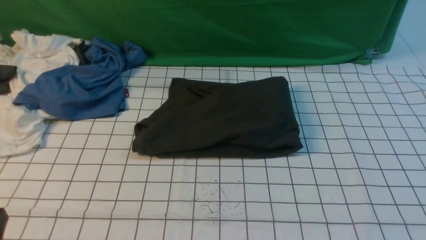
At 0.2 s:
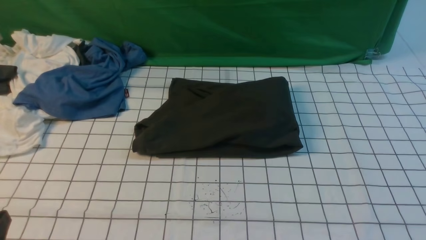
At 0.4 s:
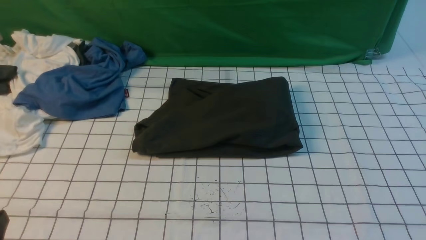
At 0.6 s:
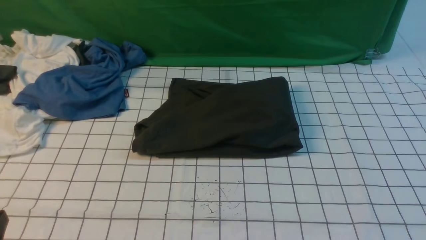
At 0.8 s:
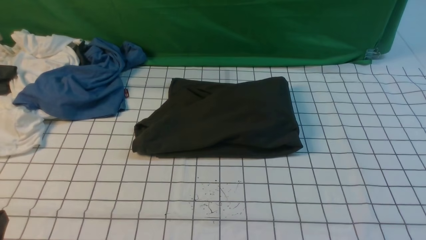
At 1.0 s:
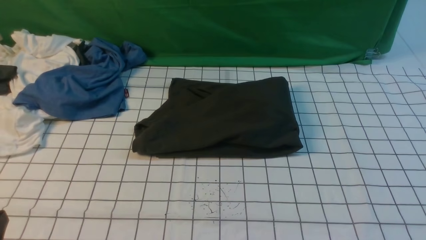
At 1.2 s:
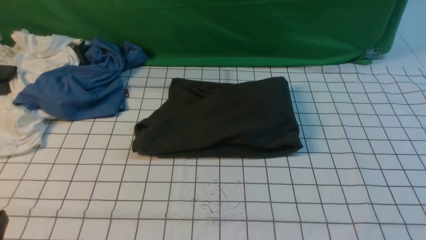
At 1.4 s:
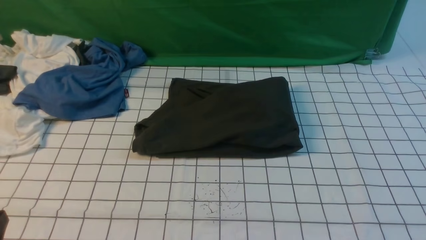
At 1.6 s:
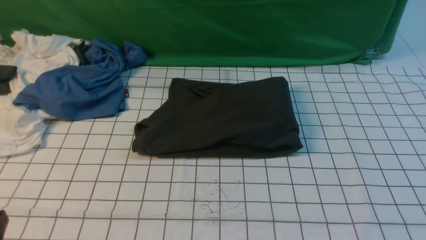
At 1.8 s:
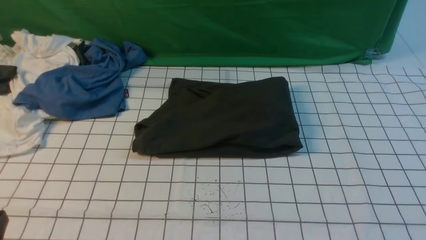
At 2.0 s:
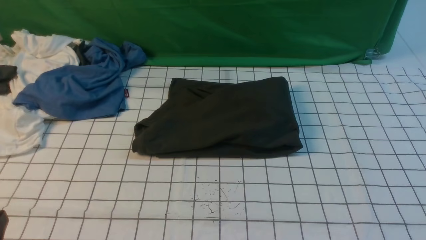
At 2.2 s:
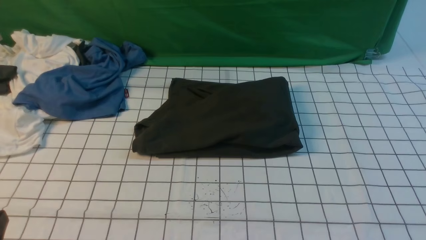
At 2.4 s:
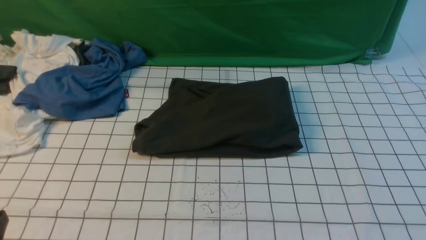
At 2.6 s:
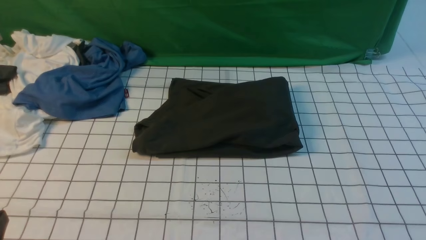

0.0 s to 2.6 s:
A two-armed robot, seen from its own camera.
0.0 to 2.6 s: Both grippers stay about where they are.

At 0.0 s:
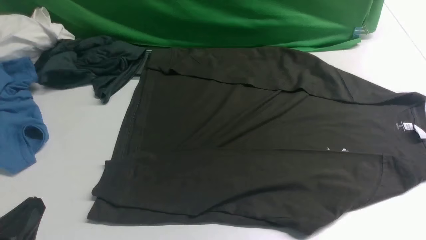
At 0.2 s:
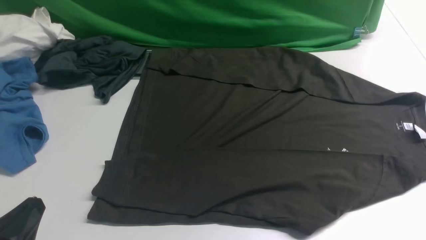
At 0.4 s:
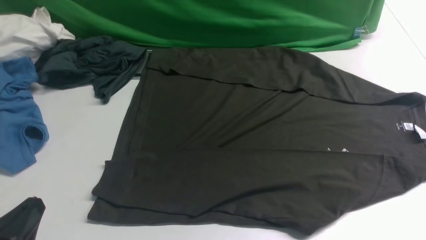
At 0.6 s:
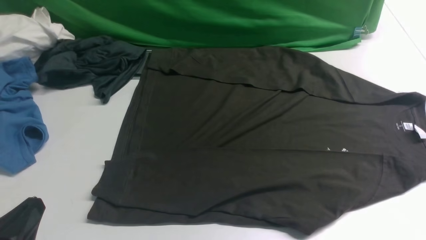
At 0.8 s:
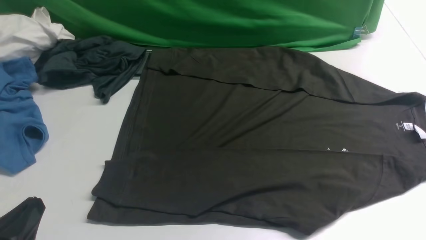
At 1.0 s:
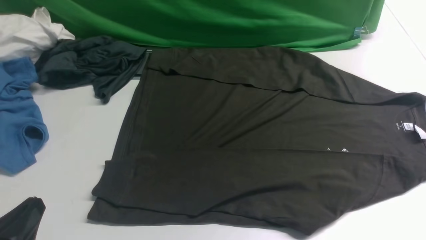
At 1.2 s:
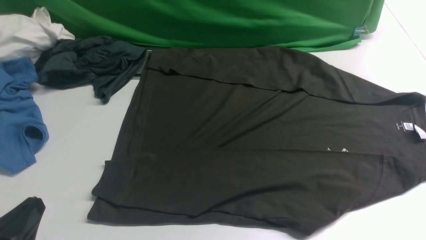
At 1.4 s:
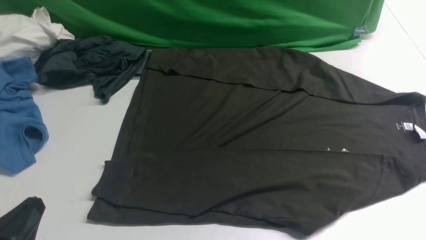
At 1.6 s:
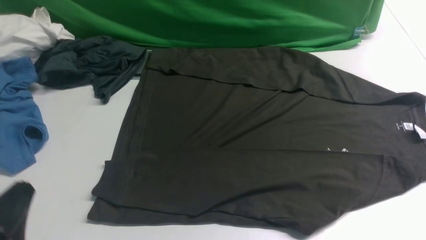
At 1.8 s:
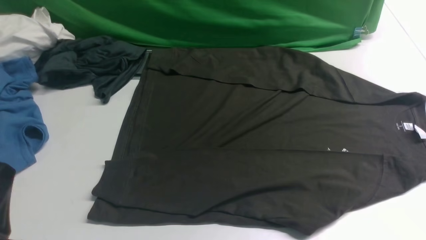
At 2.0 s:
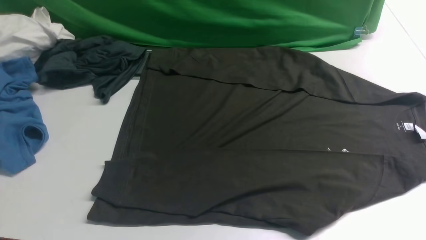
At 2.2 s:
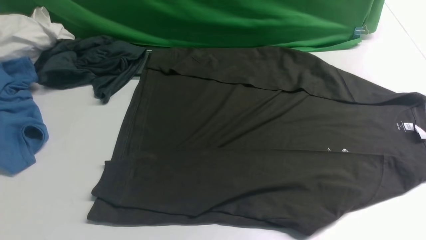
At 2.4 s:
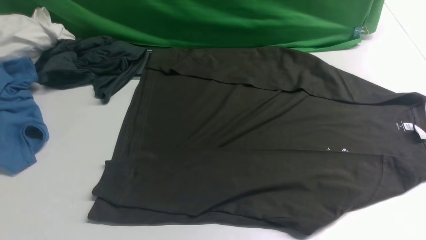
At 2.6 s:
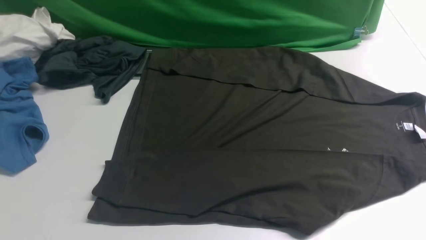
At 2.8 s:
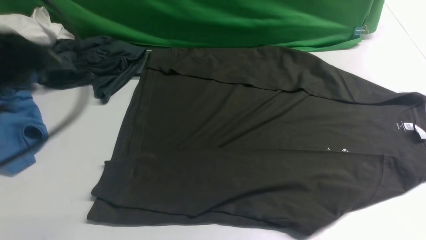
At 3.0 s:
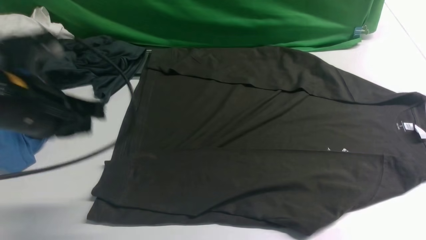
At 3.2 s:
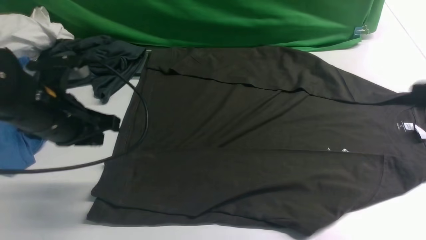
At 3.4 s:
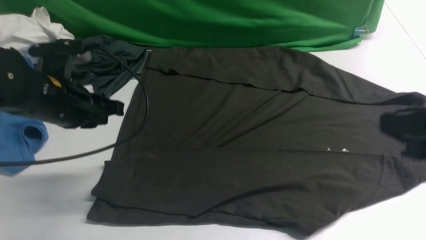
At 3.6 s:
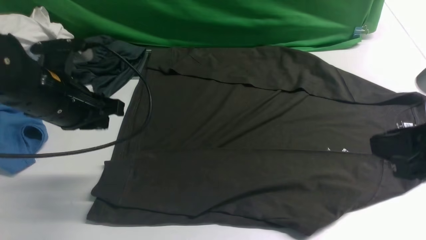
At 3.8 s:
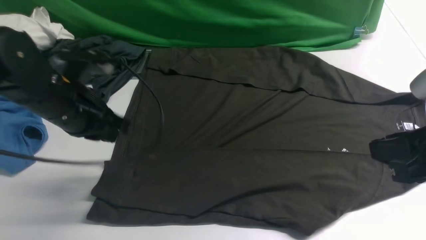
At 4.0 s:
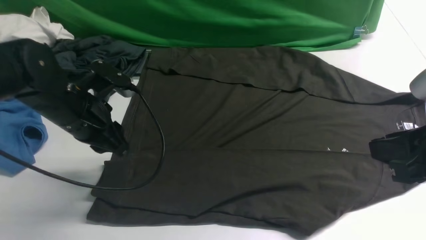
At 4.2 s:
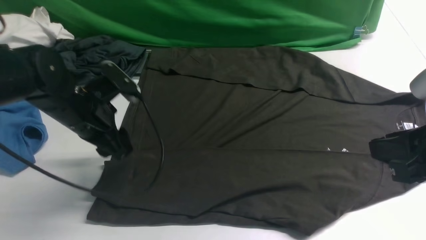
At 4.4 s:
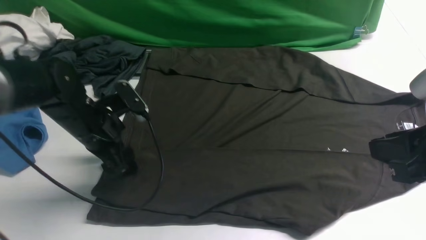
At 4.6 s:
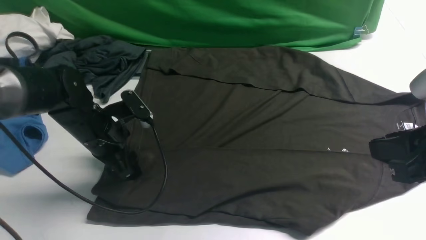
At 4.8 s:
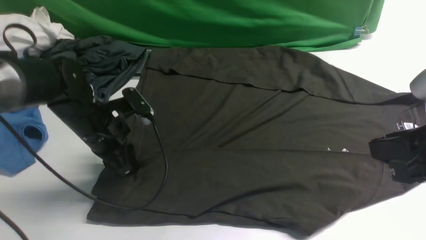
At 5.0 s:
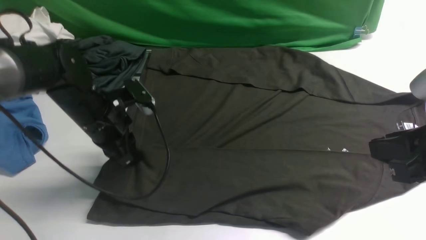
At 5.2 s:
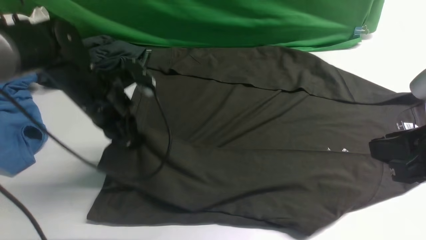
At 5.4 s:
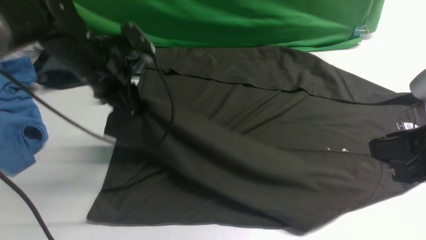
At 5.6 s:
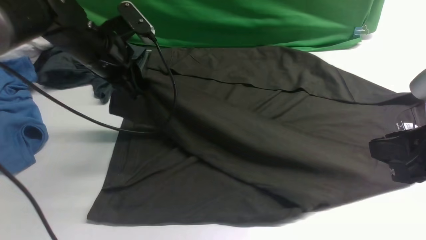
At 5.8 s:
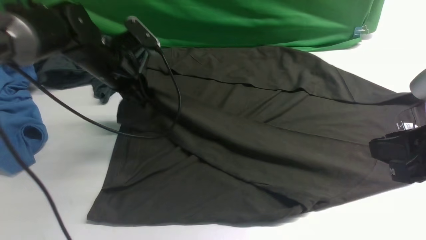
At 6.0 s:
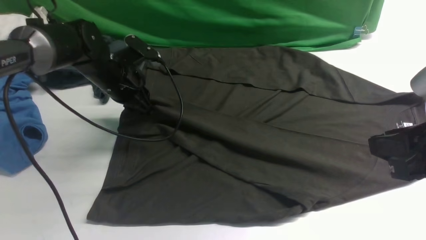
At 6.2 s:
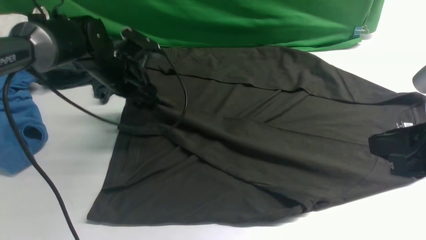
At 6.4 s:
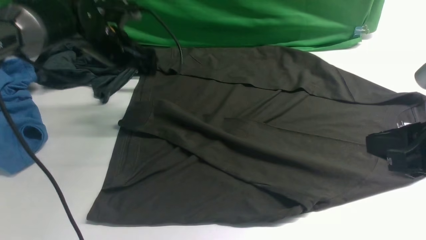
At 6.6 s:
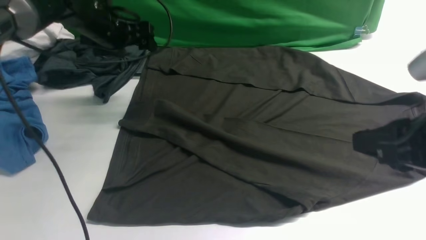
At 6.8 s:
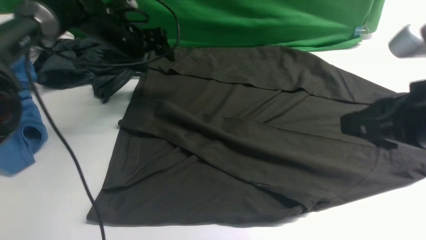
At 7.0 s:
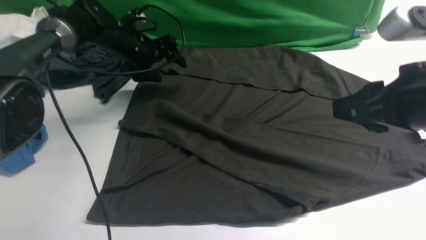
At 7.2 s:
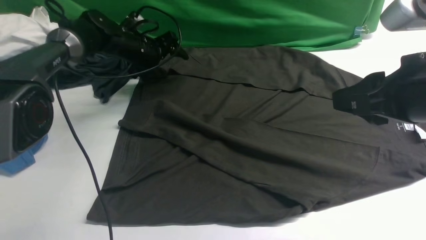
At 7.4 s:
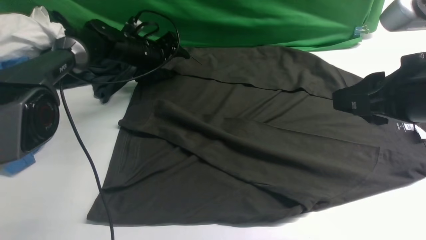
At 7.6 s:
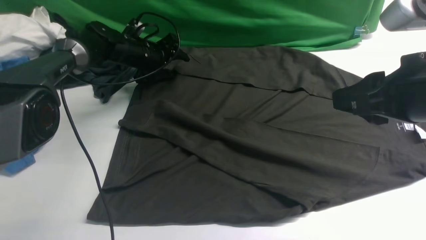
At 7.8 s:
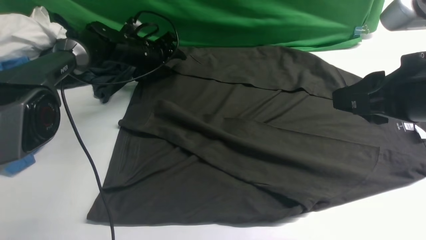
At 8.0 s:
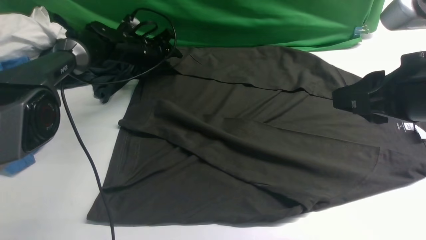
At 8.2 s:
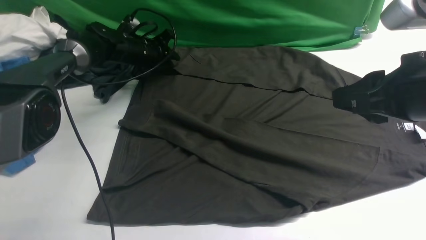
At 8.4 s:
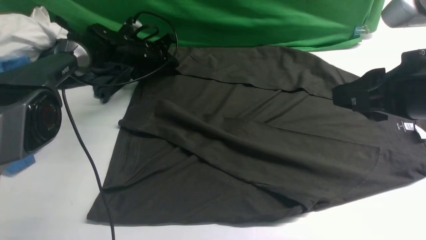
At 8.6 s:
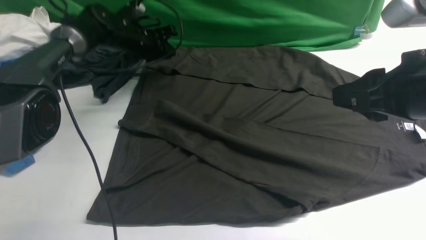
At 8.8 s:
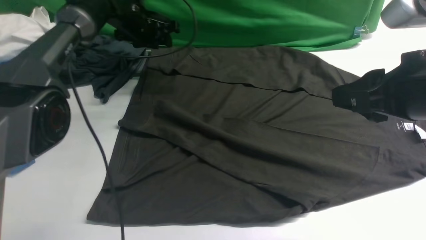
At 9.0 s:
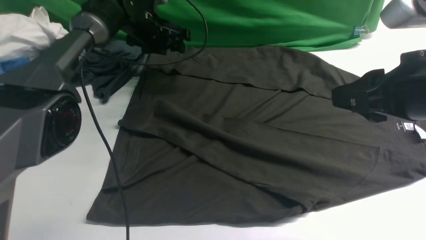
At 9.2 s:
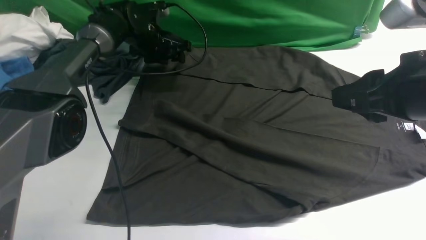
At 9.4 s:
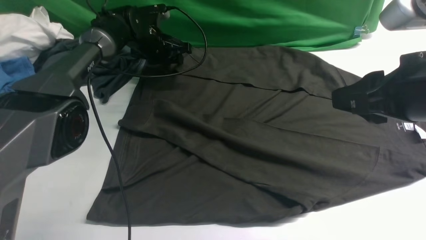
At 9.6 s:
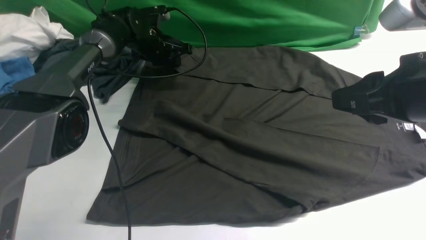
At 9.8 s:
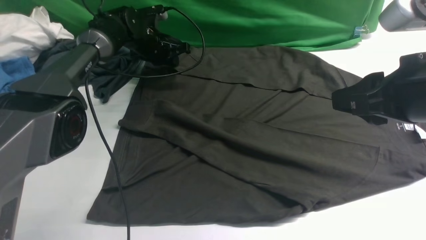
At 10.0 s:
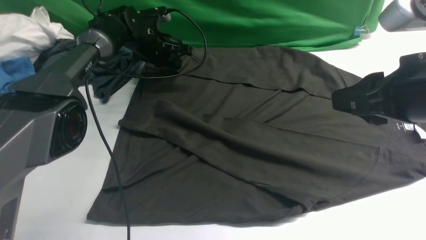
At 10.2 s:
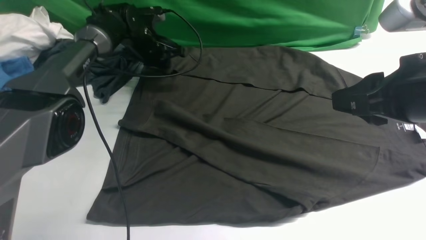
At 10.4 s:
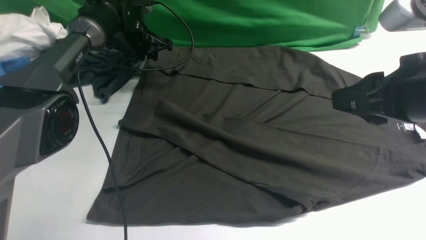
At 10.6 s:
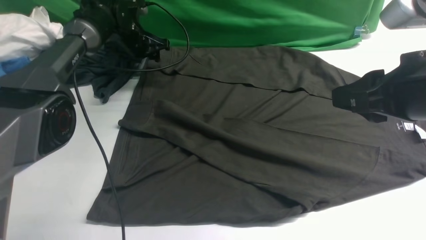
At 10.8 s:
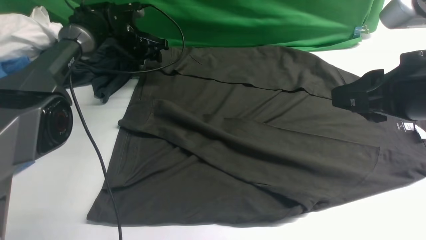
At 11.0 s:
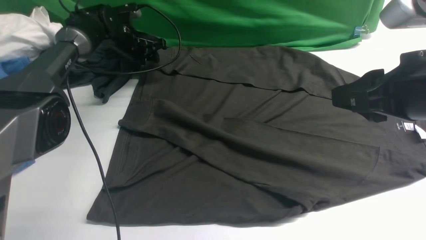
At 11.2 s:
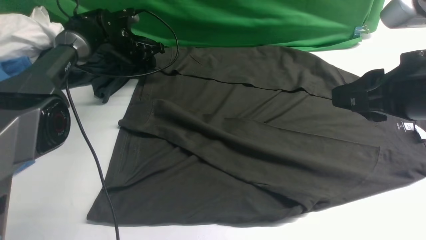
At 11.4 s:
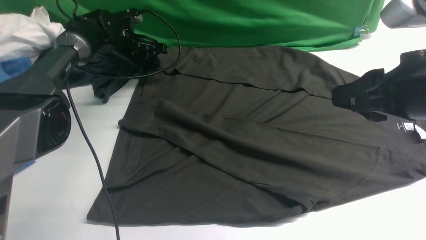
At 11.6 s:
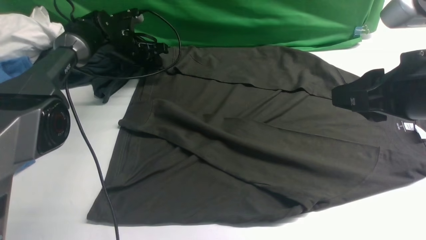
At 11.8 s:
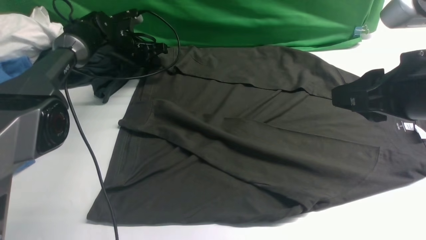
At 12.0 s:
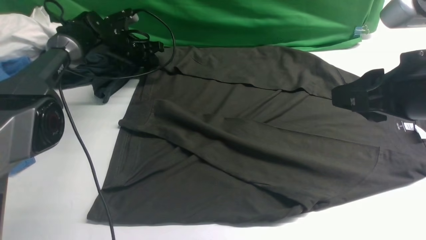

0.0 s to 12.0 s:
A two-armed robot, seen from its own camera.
Step, 0.0 to 4.8 s: use the left arm to clamp the cuff closest to it.
Step, 5.0 to 6.4 s: use the left arm to drag and place the cuff at the centered position on the left edge of the fabric.
0.0 to 1.6 s: There are only small adjustments of the grippers.
1.6 to 3.0 s: The left gripper travels forward and upward by roughly 20 cm.
3.0 to 4.4 s: The right gripper heads downward, covering approximately 5 cm. The left gripper goes approximately 15 cm downward and forward, and opens up.
4.4 to 6.0 s: The left gripper goes about 10 cm forward.
6.0 to 7.6 s: The right gripper shifts by some 5 cm. The left gripper goes roughly 15 cm forward and downward, and opens its fingers.
7.6 to 9.0 s: The left gripper moves approximately 5 cm, and closes, then opens again.
9.0 to 10.4 s: The left gripper closes, then reopens.
10.4 to 12.0 s: The left gripper closes.

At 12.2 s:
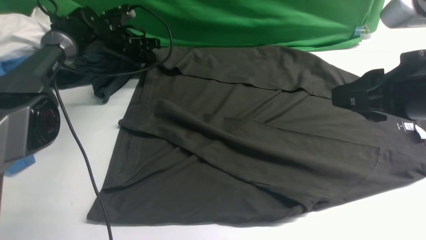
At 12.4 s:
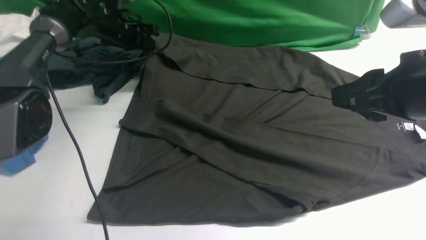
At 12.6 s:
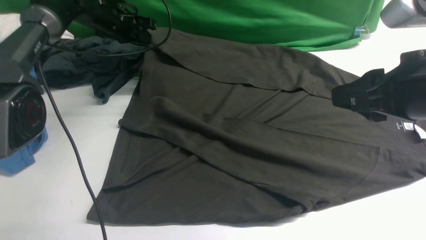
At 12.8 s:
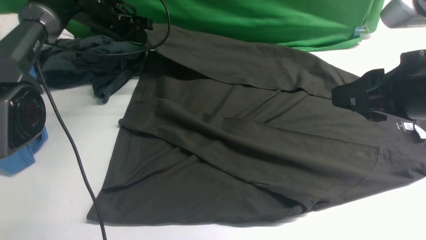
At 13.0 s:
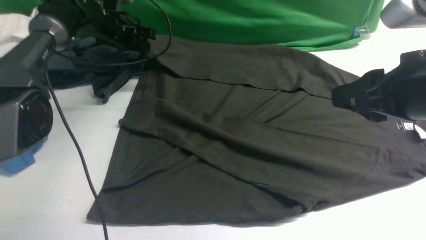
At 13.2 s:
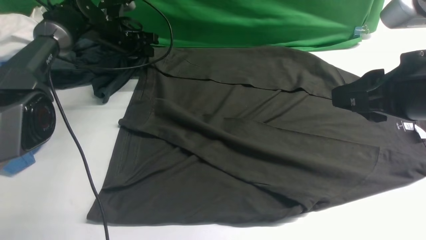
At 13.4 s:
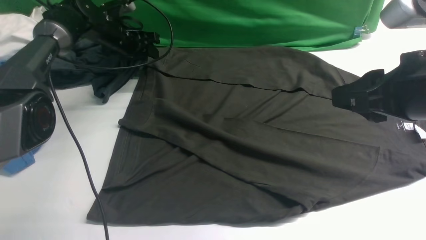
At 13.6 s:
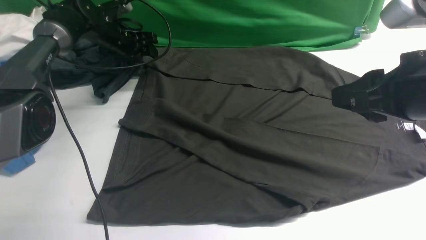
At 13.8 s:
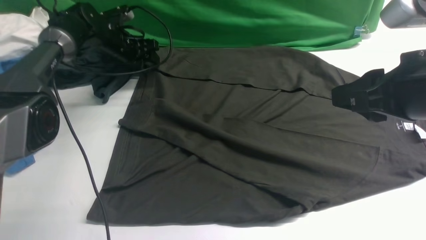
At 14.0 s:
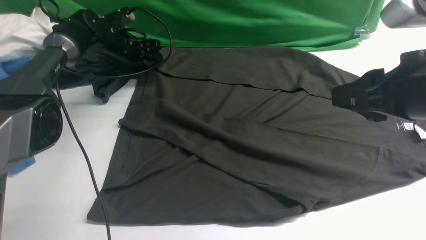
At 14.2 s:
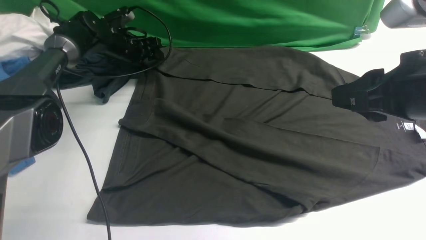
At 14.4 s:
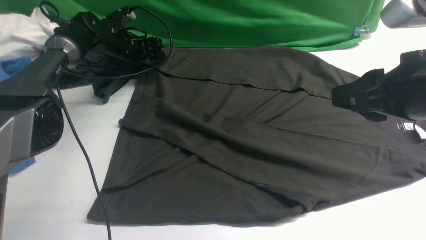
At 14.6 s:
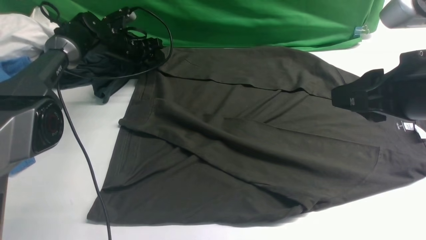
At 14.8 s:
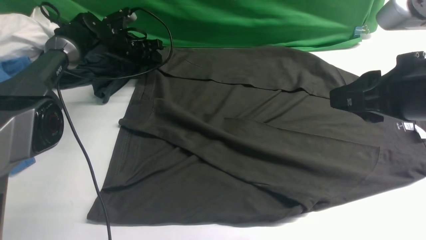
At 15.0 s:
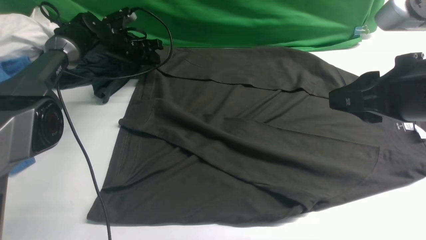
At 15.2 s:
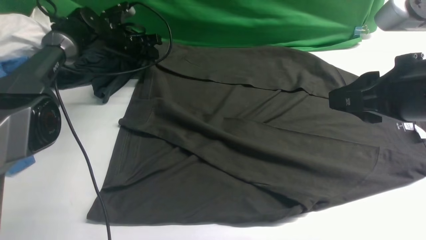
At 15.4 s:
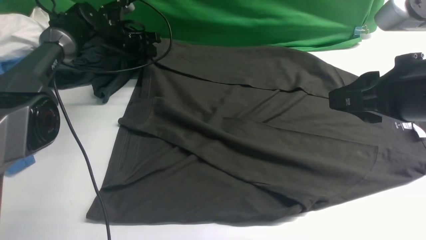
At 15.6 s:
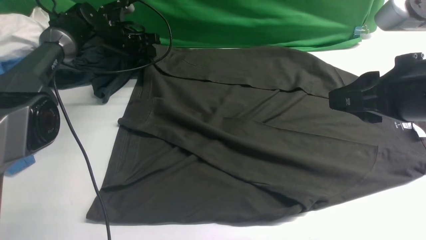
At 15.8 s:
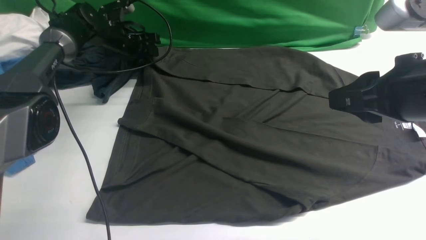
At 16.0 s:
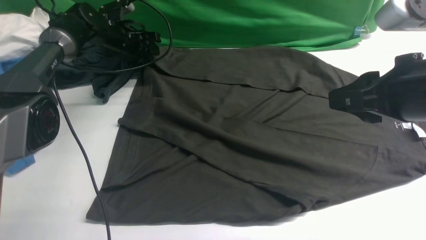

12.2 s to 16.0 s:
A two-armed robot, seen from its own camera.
12.2 to 13.4 s: The left gripper opens up.
13.4 to 16.0 s: The grippers stay close to where they were, moving slightly.
